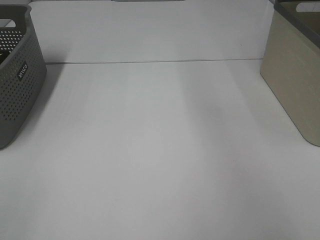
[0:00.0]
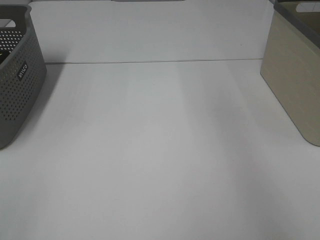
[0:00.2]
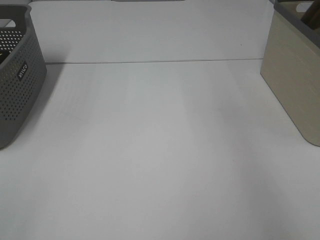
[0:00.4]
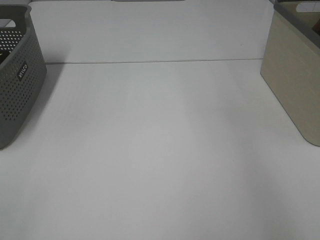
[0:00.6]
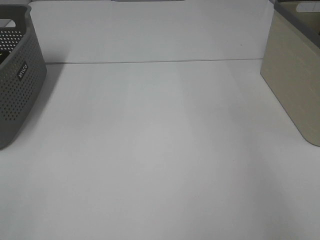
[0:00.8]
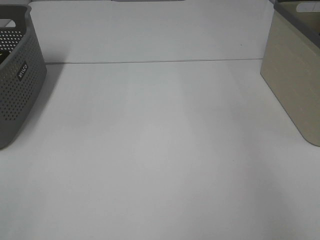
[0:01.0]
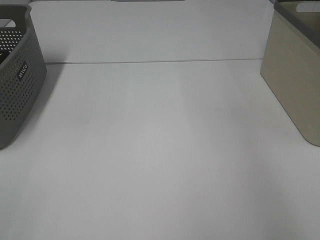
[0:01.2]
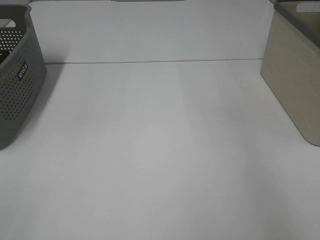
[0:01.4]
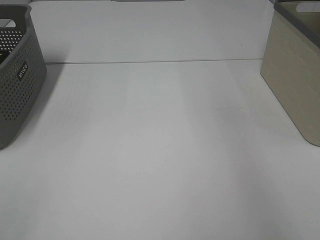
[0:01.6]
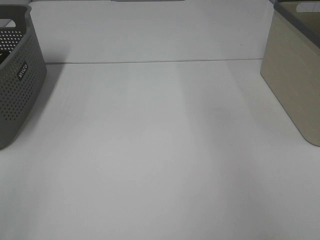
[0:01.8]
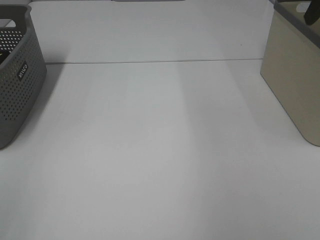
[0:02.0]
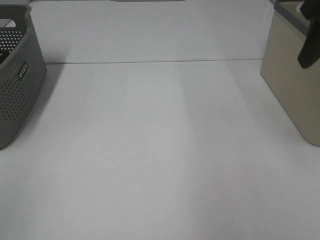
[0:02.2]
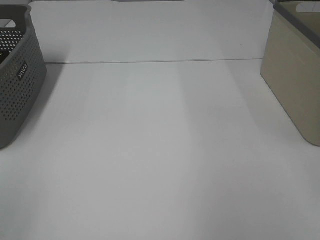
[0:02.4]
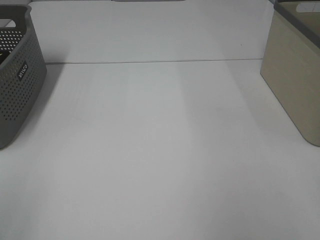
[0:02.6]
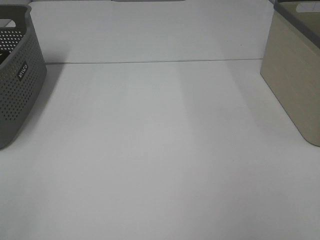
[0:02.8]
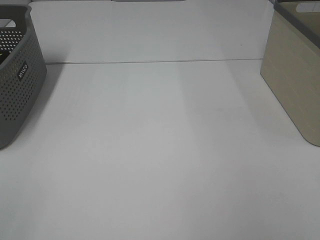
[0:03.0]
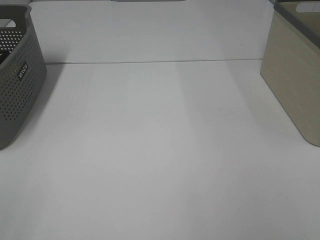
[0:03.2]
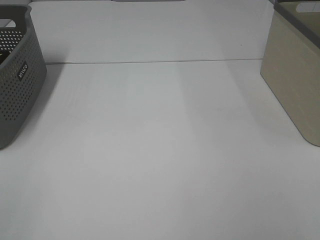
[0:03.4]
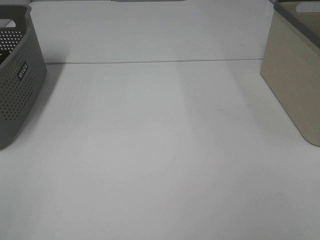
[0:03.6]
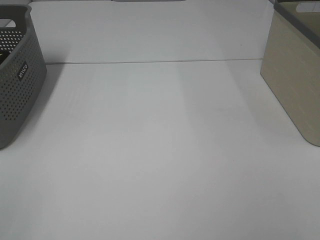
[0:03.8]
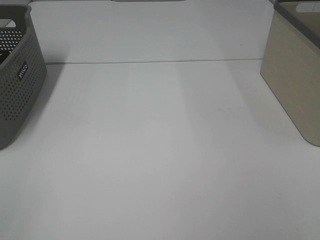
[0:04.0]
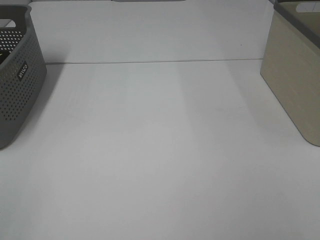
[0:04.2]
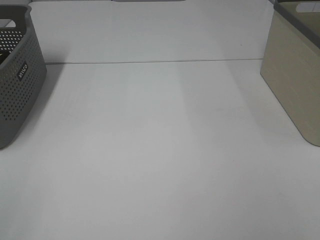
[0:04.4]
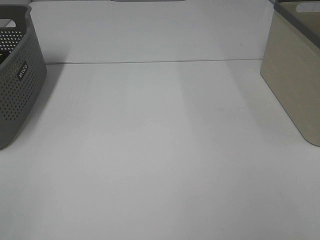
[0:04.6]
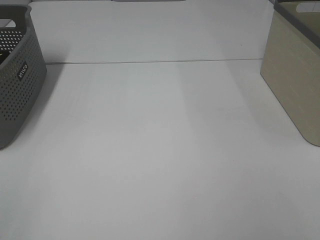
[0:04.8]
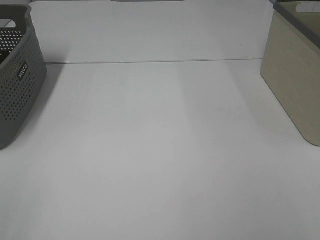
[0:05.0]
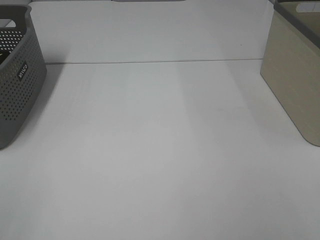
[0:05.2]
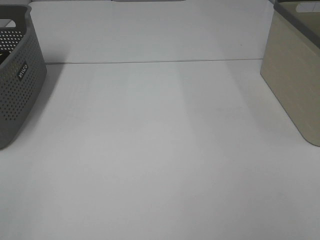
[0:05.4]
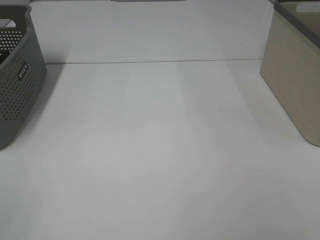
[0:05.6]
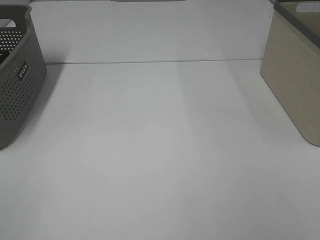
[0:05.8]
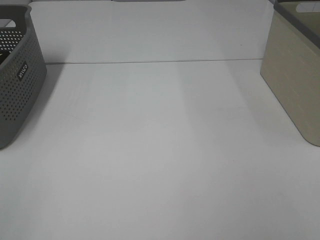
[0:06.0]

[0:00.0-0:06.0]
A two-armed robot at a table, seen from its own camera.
0:04.4 to 0:06.0: Both grippers stay put.

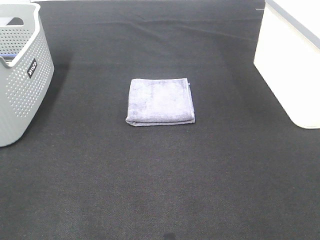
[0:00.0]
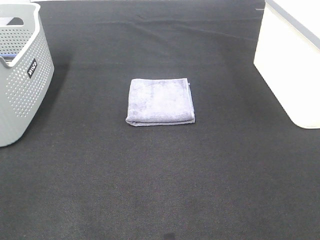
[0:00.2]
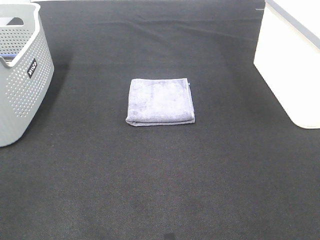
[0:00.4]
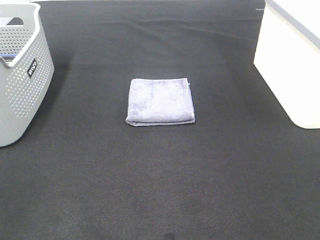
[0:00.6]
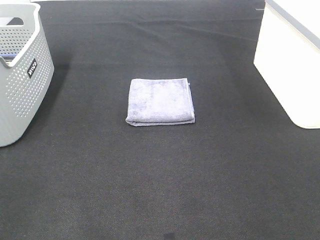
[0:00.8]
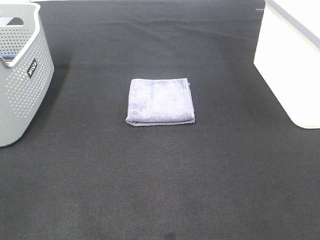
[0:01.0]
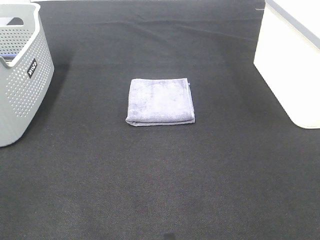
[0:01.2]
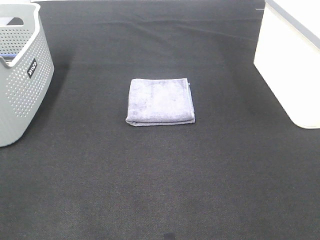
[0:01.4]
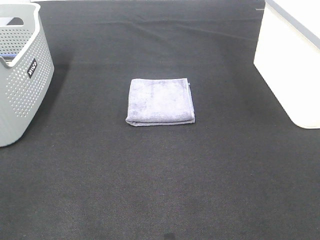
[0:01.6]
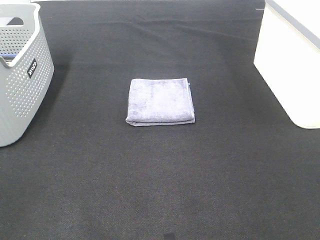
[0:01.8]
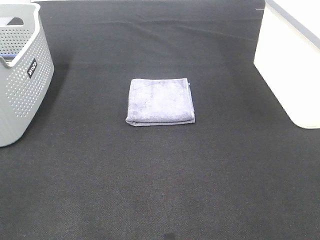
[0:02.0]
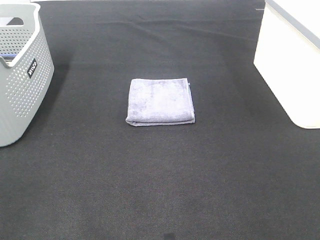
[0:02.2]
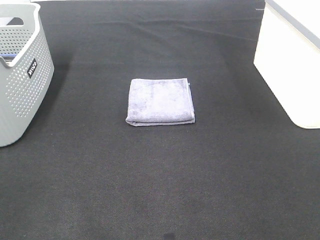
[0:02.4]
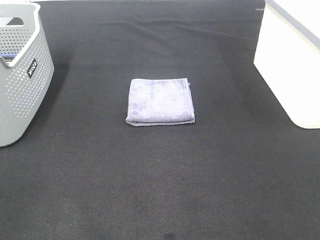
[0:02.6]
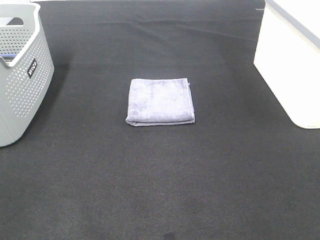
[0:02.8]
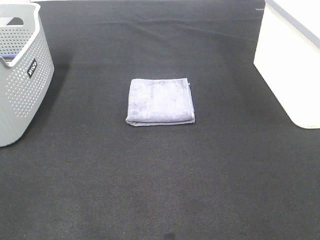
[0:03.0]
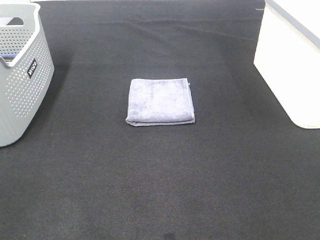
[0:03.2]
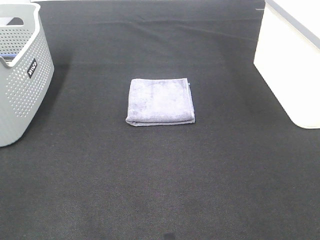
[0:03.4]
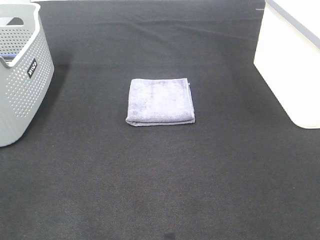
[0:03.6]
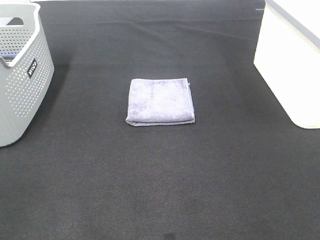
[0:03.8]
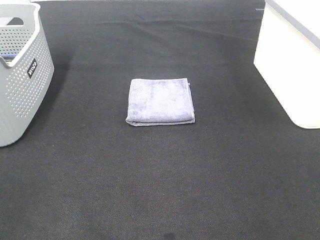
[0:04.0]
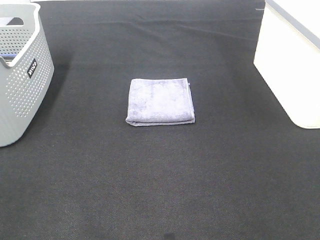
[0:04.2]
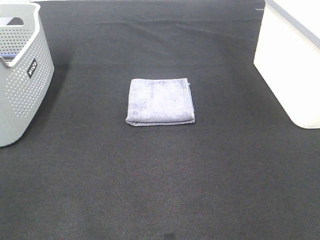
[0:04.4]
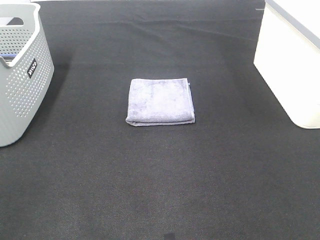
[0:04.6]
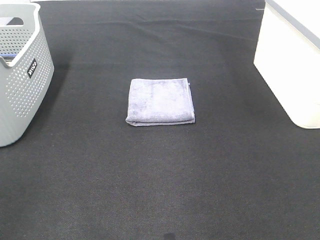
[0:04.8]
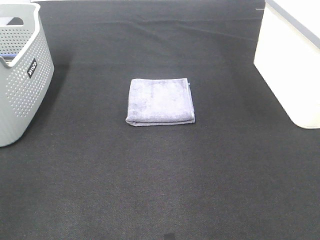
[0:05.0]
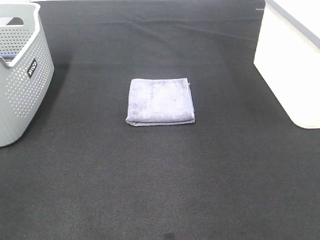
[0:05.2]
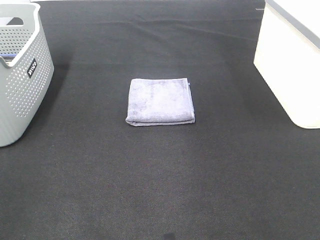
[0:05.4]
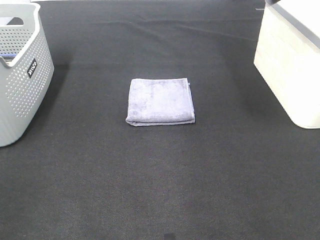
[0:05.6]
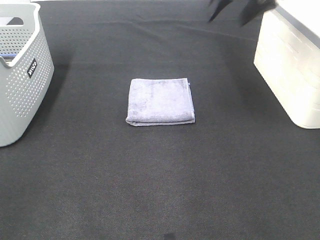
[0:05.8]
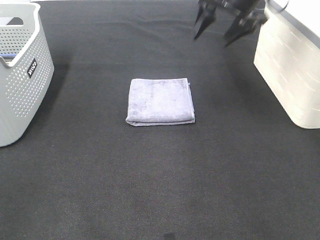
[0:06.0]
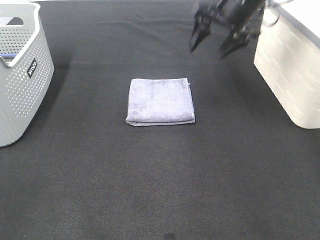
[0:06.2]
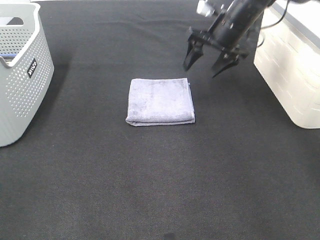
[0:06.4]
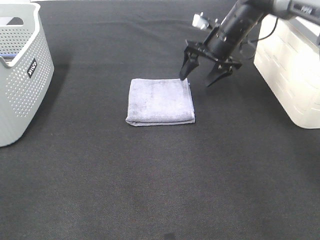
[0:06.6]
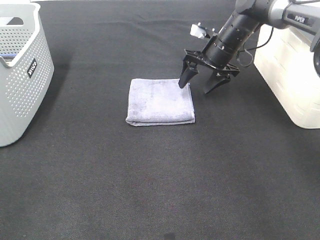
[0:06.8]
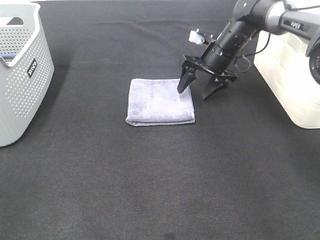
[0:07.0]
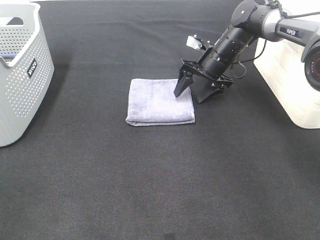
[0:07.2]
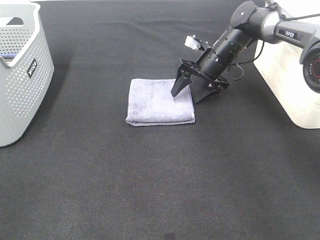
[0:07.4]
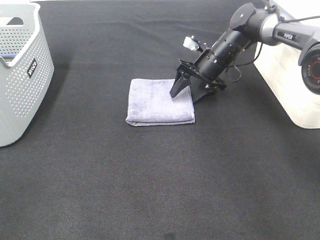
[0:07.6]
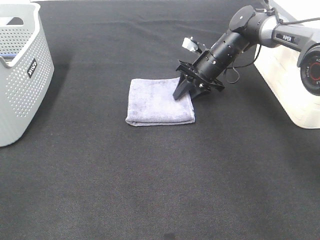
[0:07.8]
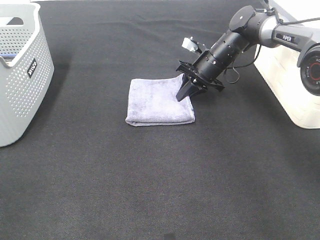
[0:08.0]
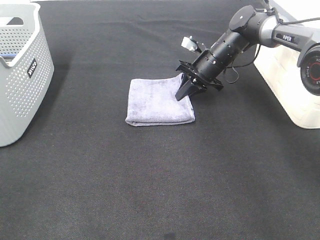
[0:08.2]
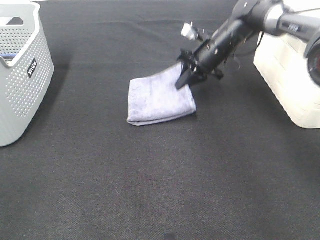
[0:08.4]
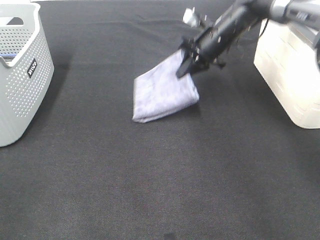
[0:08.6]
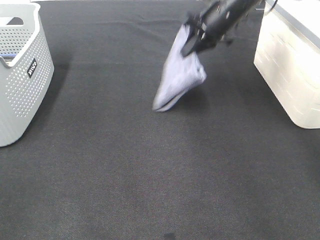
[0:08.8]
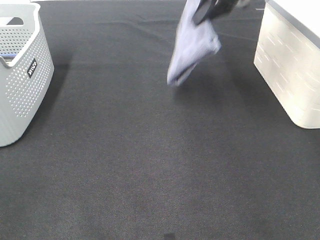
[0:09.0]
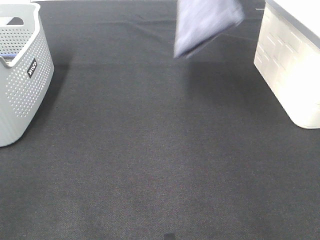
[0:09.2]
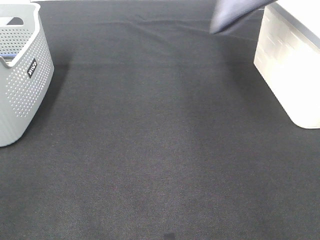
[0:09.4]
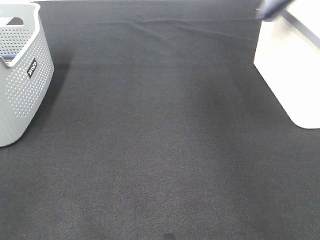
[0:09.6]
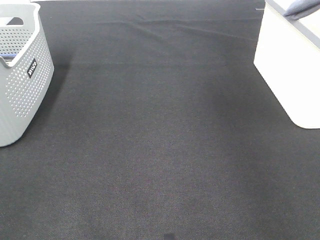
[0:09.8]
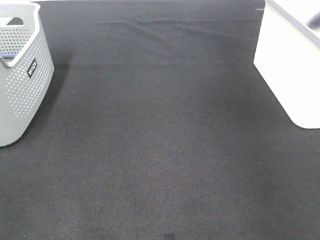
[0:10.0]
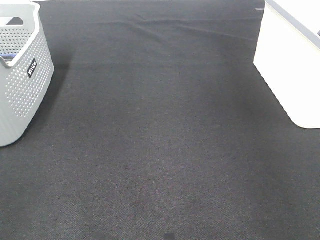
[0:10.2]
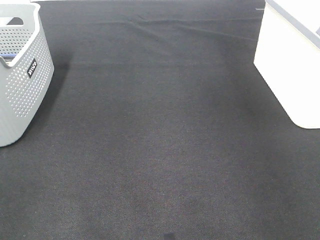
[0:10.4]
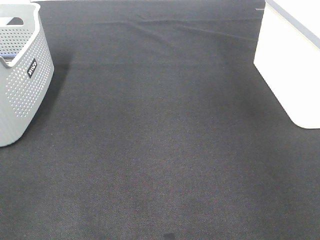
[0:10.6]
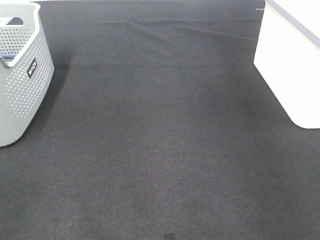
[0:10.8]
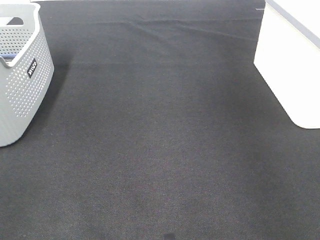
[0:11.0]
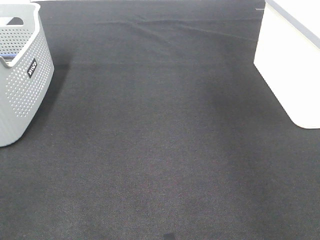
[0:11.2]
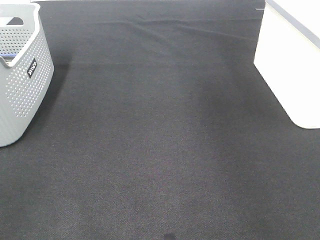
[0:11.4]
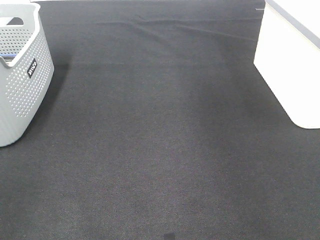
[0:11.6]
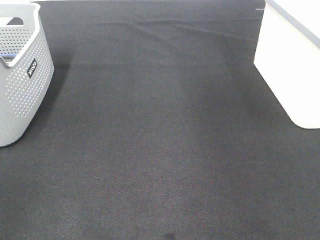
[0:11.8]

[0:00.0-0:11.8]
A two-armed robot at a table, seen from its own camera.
Step, 0:00.0 to 0:08.2: Right hand: grab the folded grey towel.
Step, 0:08.4 to 0:10.6: Right hand: place the grey towel in right basket.
0:00.0 to 0:03.0: Neither gripper changes place.
0:04.4 to 0:06.0: The right gripper heads forward, covering roughly 35 cm.
0:06.0 to 0:07.4: The right gripper heads downward, covering roughly 15 cm.
0:07.4 to 0:08.8: The right gripper is displaced upward by roughly 15 cm, and closes up.
0:08.8 to 0:10.4: The right gripper moves to the right, approximately 25 cm, and opens.

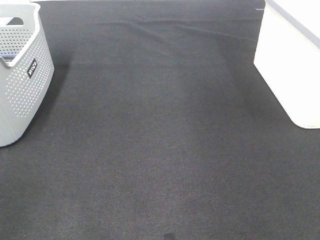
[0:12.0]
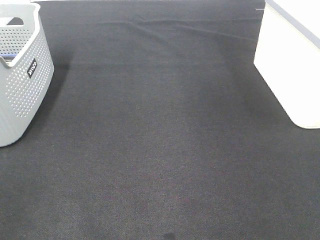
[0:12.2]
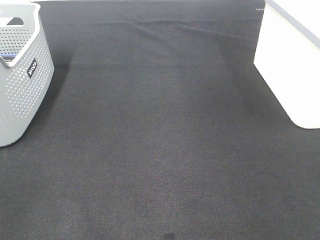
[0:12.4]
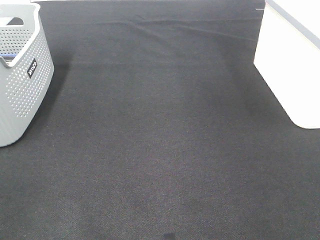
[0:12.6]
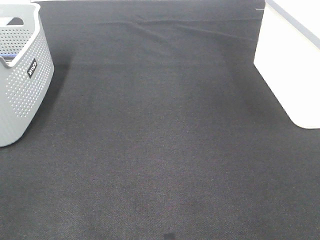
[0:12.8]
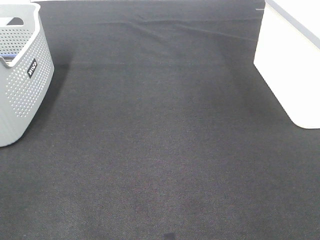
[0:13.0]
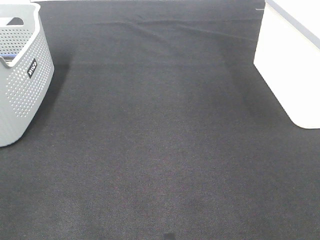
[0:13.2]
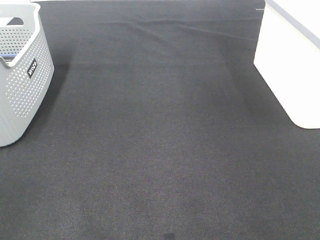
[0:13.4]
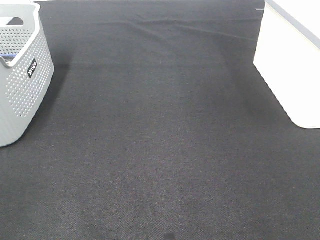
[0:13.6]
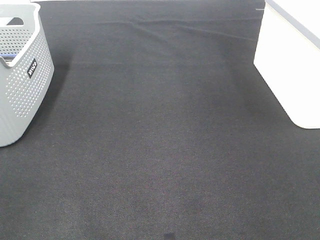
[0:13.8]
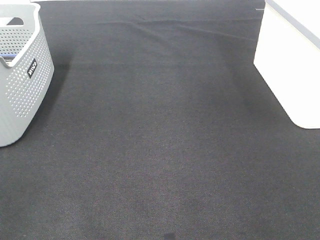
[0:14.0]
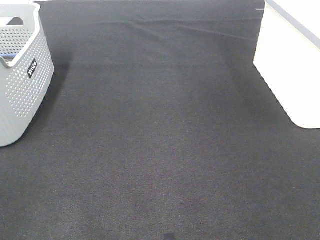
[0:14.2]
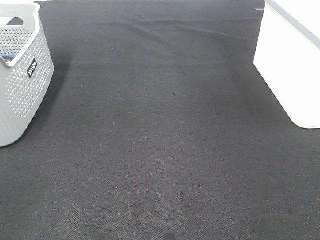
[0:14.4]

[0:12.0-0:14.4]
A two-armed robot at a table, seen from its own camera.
0:13.2 to 0:14.4: The two grippers keep their place.
